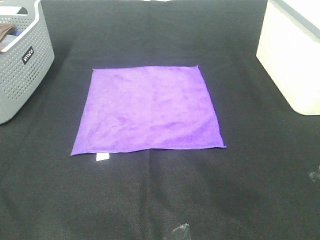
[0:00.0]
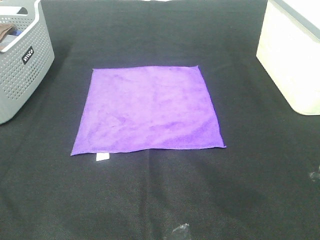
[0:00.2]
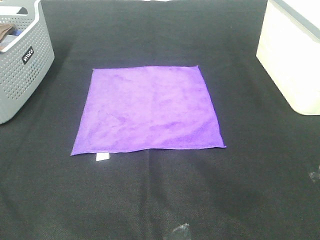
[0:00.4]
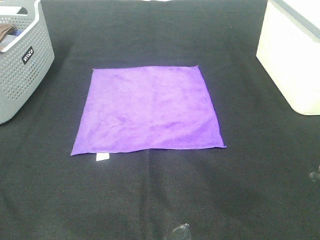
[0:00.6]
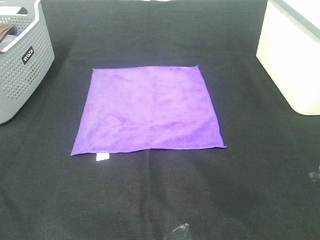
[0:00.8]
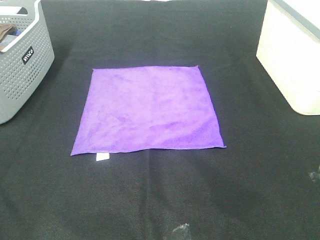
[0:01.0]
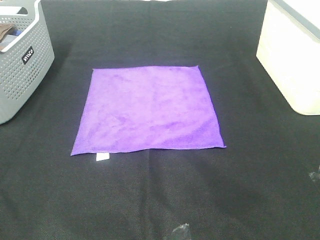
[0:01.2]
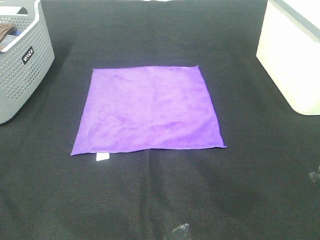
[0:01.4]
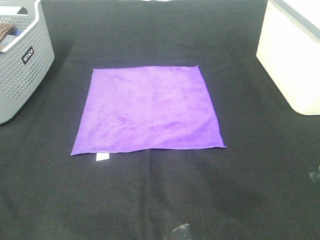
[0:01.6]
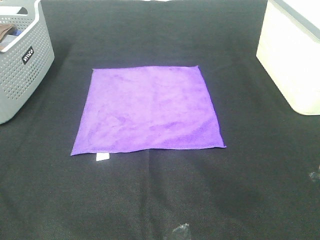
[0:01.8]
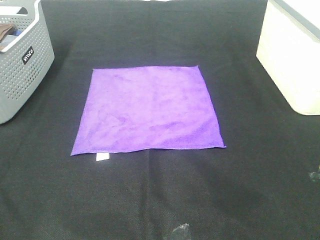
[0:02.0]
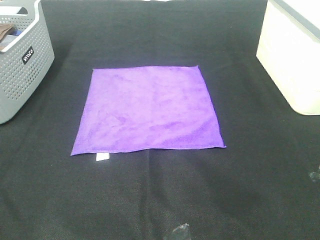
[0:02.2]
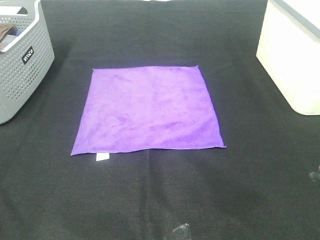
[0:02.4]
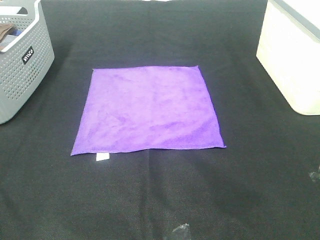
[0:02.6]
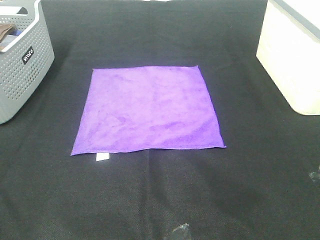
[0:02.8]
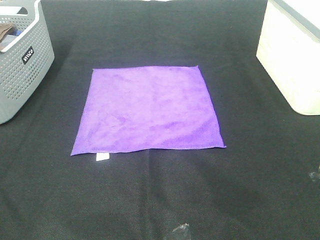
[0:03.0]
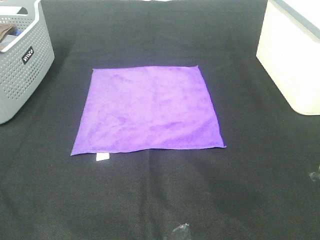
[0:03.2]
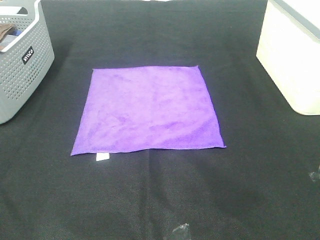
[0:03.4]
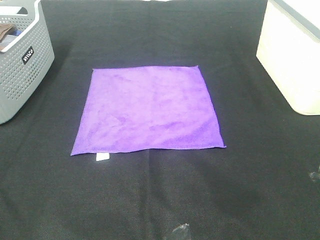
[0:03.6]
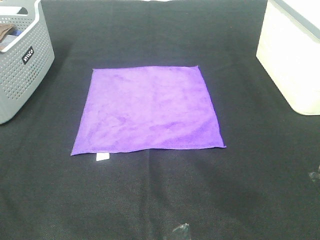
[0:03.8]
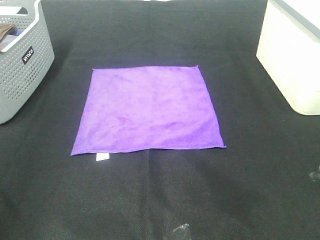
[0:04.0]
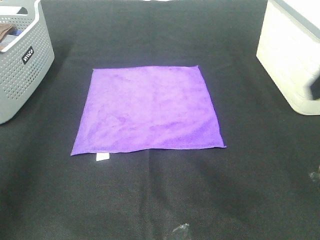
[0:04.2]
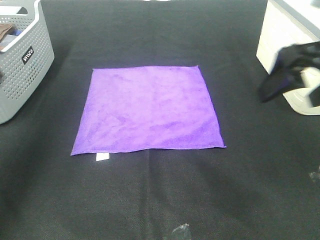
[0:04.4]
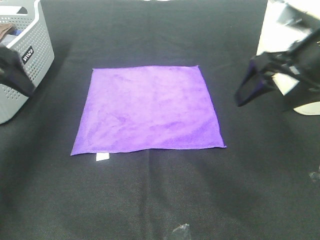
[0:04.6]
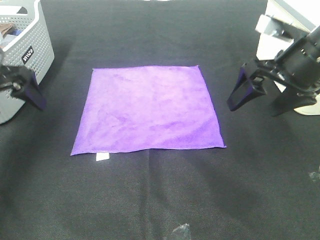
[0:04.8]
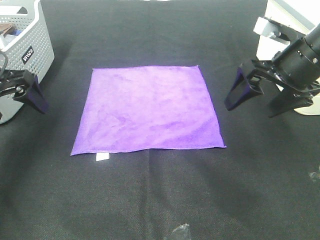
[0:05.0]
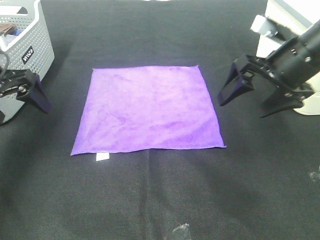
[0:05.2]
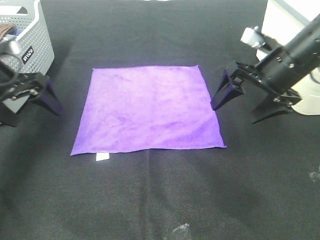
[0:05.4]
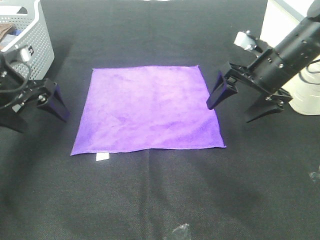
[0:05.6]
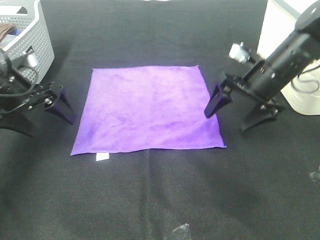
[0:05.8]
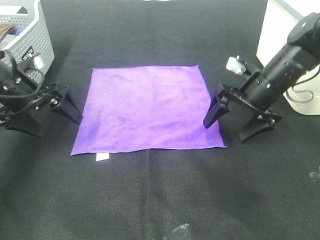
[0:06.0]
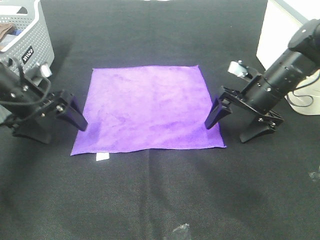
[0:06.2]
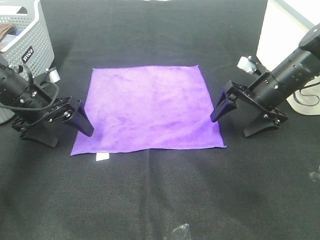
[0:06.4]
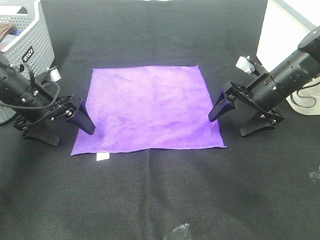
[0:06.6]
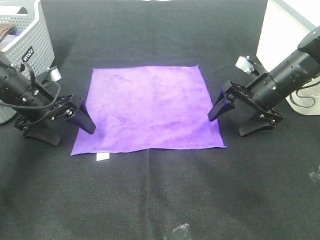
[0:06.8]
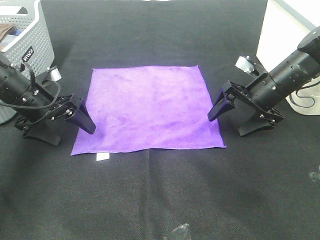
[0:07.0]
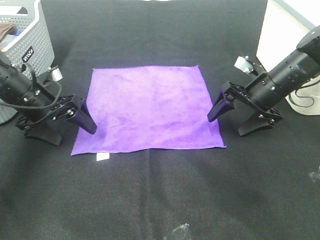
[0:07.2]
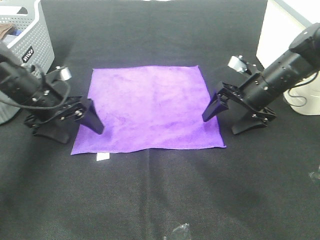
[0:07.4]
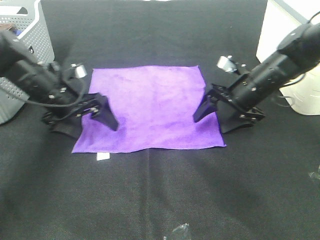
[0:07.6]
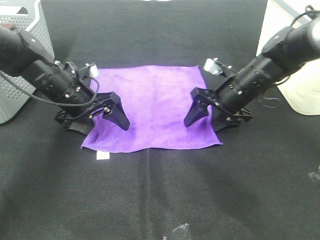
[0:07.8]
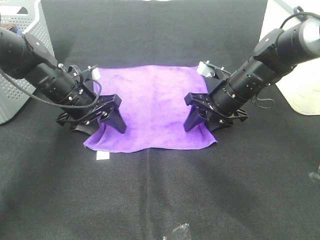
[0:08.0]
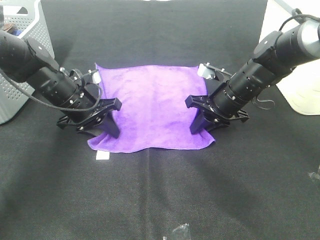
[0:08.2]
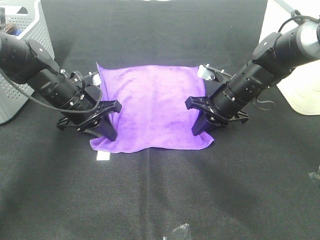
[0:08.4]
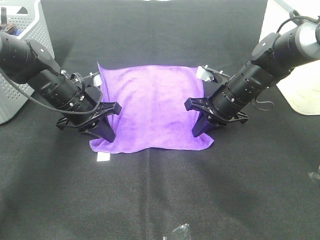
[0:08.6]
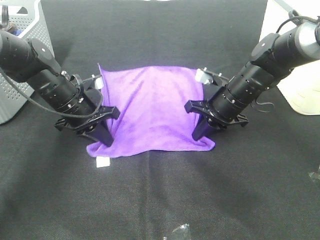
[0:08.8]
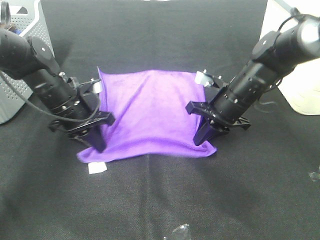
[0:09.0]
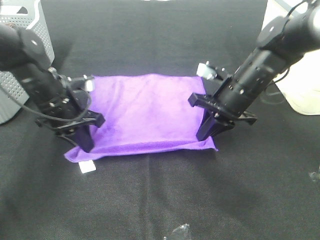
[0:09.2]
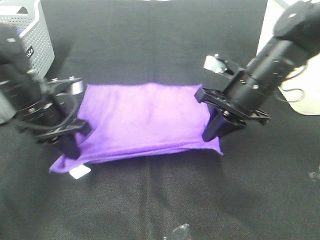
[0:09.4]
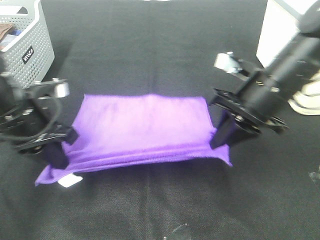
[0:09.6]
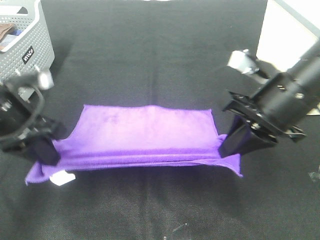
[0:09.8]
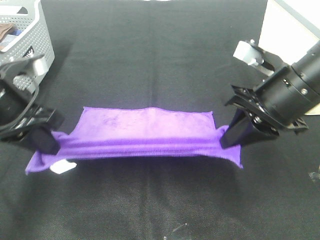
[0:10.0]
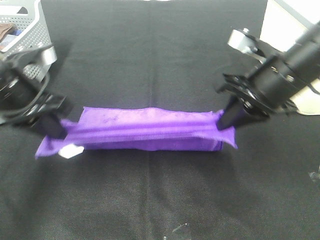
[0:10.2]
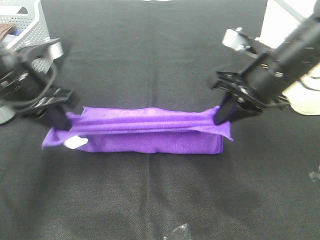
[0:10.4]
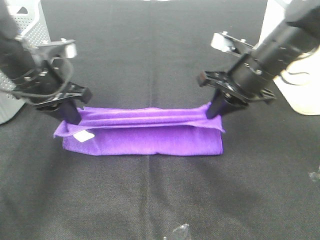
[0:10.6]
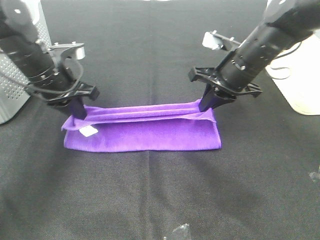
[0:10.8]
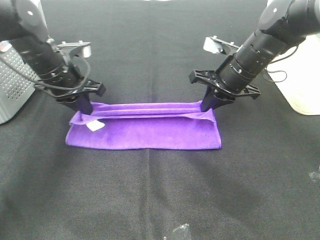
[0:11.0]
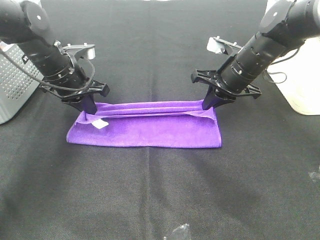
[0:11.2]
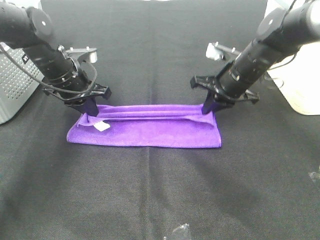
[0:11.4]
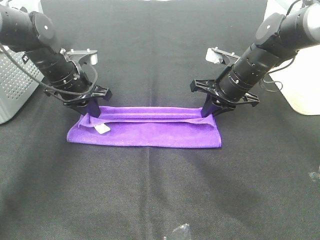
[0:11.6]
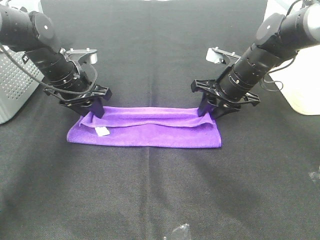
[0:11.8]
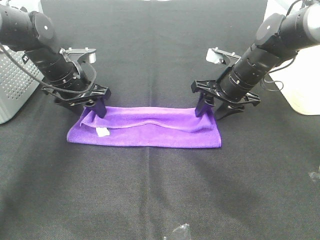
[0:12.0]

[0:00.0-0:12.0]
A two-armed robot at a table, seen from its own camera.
Task of the whole recording: Fold towels.
Step, 0:00.0 to 0:08.4: Left hand: grab the bottom left corner of purple towel.
Step, 0:00.0 to 0:08.4: Right hand: grab the bottom right corner of purple towel.
Step, 0:08.6 to 0:11.4: Left hand: fold the purple towel up.
Step, 0:08.6 to 0:11.4: Right hand: fold the purple towel up.
0:00.0 to 0:03.0: The two grippers keep their place.
0:03.0 to 0:04.4: The grippers both shift forward by some 25 cm.
0:04.4 to 0:06.0: The two grippers go roughly 20 cm downward and forward.
0:06.0 to 0:07.6: The left gripper moves to the right, approximately 5 cm.
0:07.6 to 0:09.0: The left gripper closes up. Meanwhile the right gripper closes up.
0:09.0 to 0:10.4: Both grippers travel together upward and backward, some 10 cm.
0:10.4 to 0:12.0: Both grippers travel together forward and downward, some 15 cm. The right gripper opens up, while the left gripper opens up.

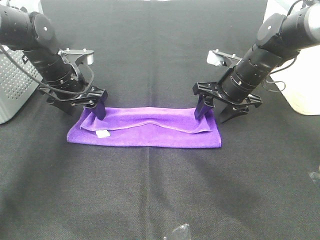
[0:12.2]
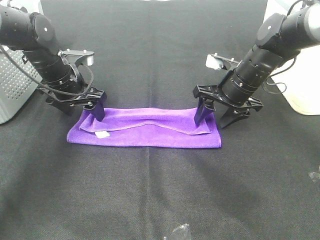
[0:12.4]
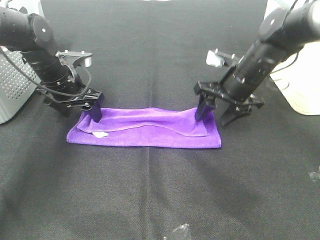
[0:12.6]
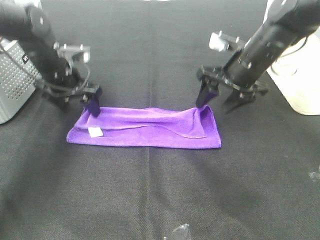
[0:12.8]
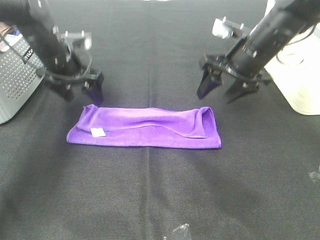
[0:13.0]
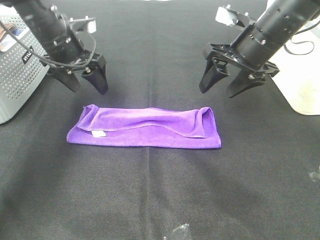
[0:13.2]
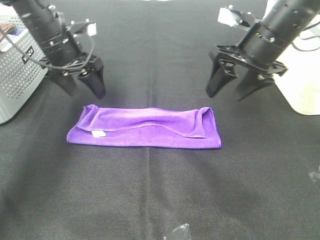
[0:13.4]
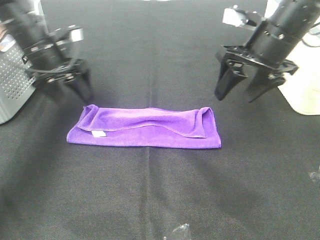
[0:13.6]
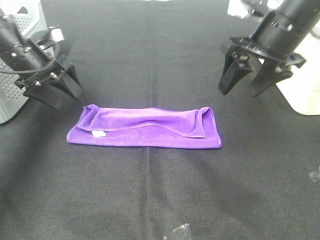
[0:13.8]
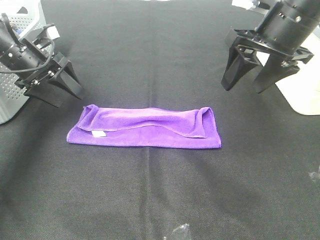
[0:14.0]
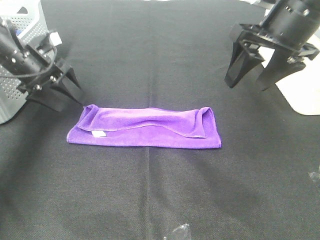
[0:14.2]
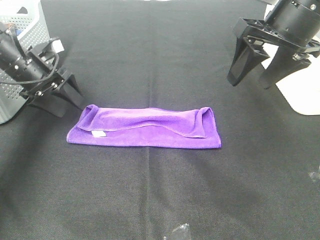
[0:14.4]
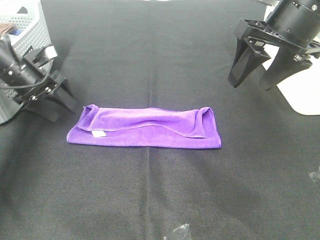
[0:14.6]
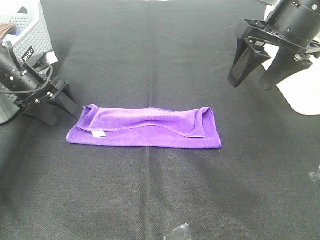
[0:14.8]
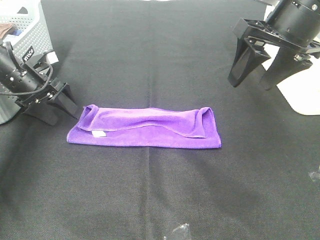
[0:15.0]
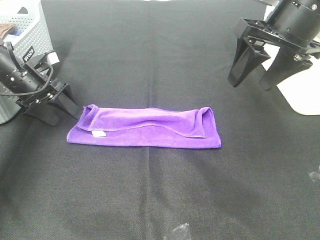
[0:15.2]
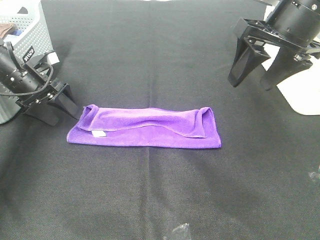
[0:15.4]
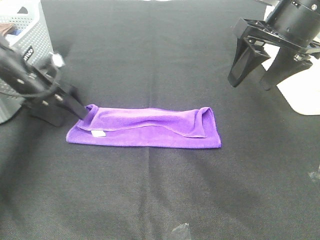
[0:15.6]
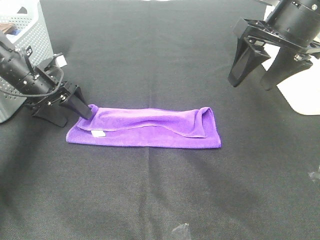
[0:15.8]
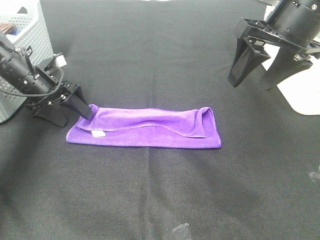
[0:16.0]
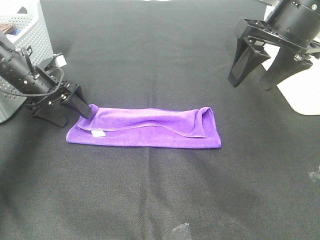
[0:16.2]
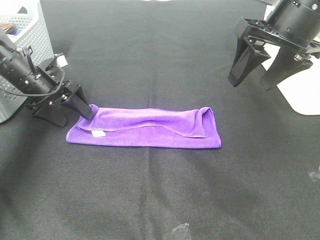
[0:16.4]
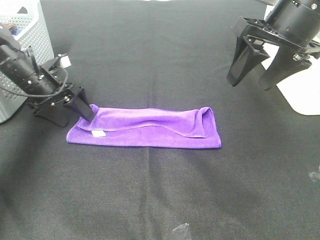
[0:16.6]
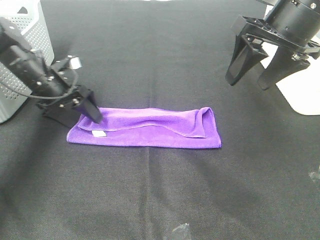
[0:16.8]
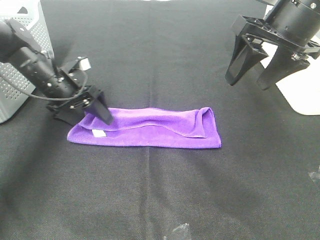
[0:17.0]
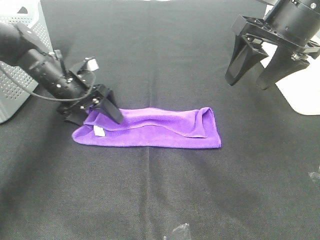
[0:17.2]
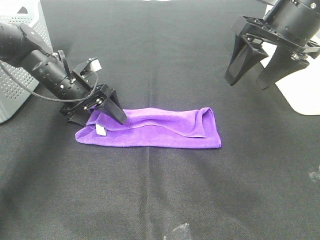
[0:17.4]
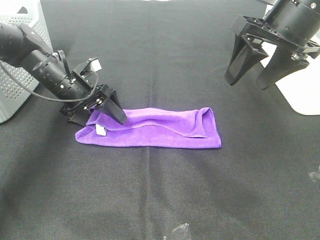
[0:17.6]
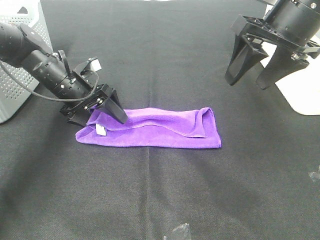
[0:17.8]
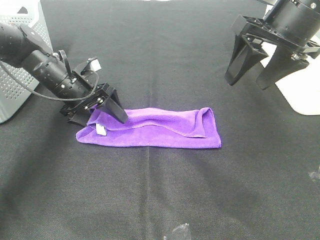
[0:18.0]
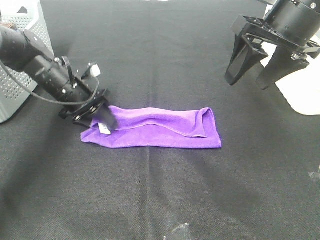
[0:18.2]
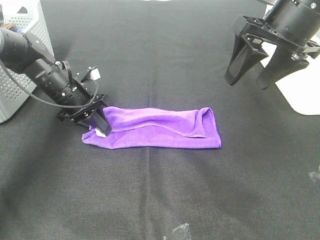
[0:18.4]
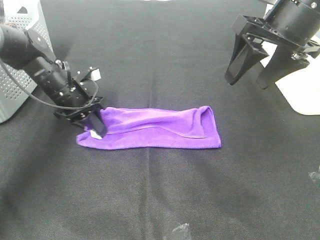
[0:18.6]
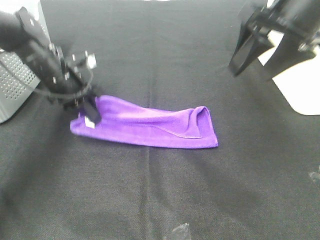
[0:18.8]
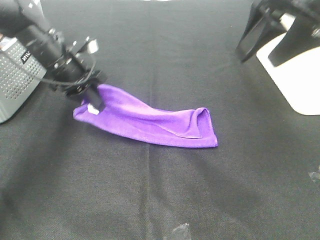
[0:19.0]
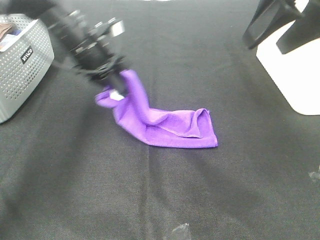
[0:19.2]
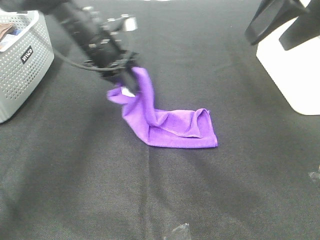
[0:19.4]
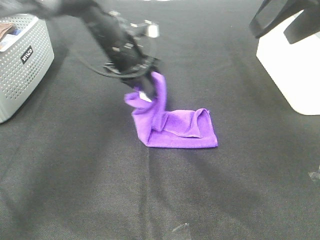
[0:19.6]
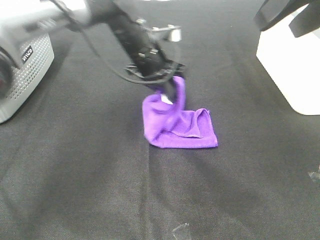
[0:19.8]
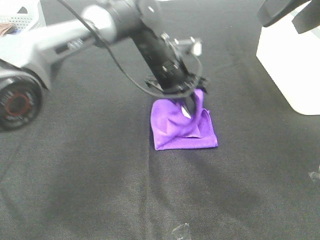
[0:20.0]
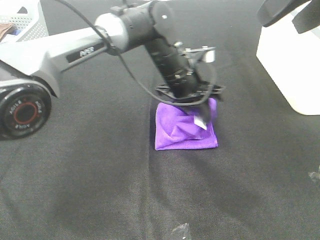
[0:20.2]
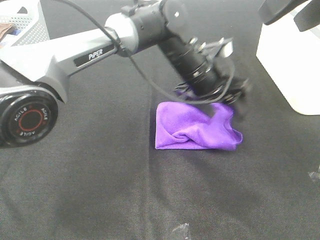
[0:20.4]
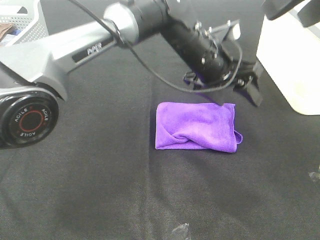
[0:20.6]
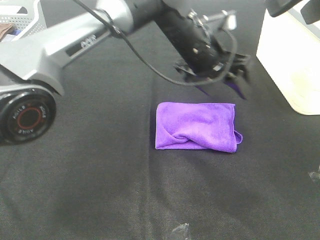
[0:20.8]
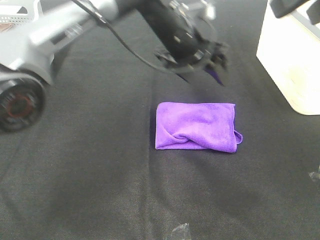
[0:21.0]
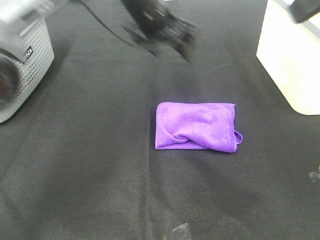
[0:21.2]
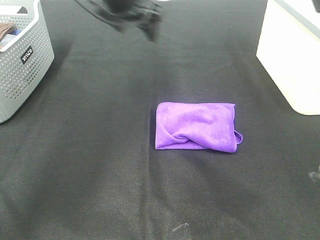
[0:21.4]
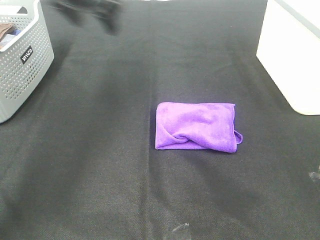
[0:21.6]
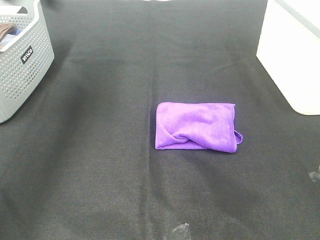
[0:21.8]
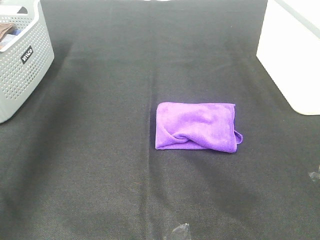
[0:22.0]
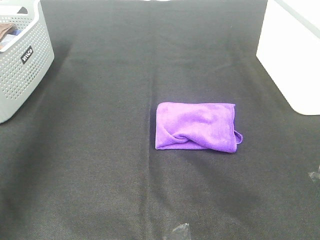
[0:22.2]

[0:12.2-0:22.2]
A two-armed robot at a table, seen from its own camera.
Task of the whole recording: Fold towels.
Step, 0:12.2 to 0:20.0: Left hand: fold the purple towel from left to right.
0:12.2 to 0:13.6: The left gripper travels upward by about 5 cm. Meanwhile the right gripper shifts approximately 15 cm upward and backward.
0:13.6 to 0:15.0: The right gripper heads upward, covering roughly 5 cm, while the left gripper shifts about 10 cm downward and to the left.
0:15.0 to 0:16.4: The grippers stay close to where they were, moving slightly.
0:16.4 to 0:18.0: The left gripper is displaced to the right by approximately 5 cm.
0:18.0 to 0:19.4: The right gripper moves upward and backward, some 10 cm. The left gripper travels to the right and upward by some 15 cm, and closes.
0:19.4 to 0:20.8: The left gripper travels to the right by about 15 cm, and opens.
0:20.8 to 0:22.2: The right gripper is displaced backward by some 20 cm, while the left gripper shifts about 50 cm to the left, upward and backward.
